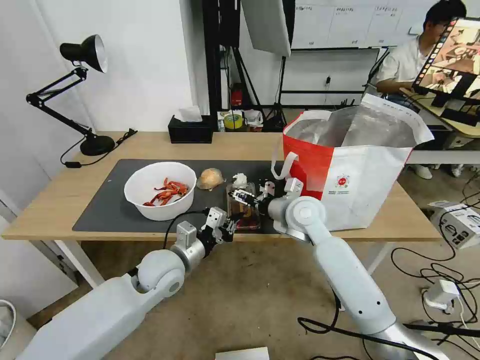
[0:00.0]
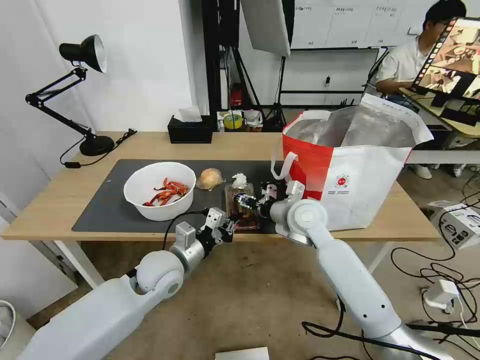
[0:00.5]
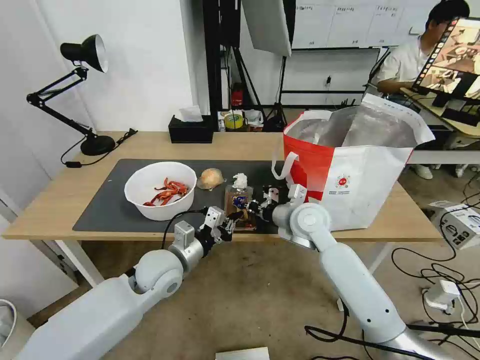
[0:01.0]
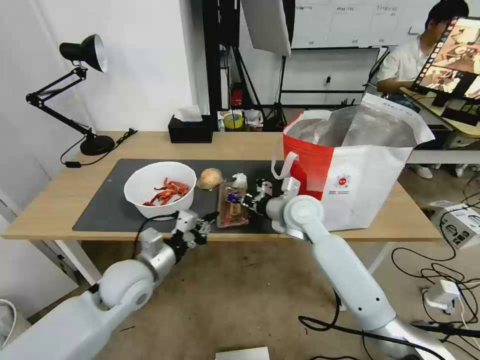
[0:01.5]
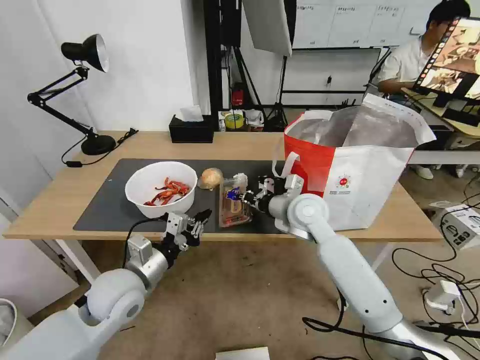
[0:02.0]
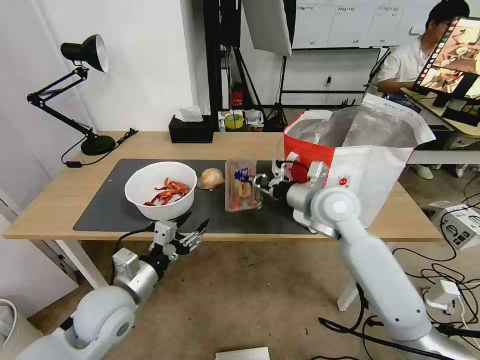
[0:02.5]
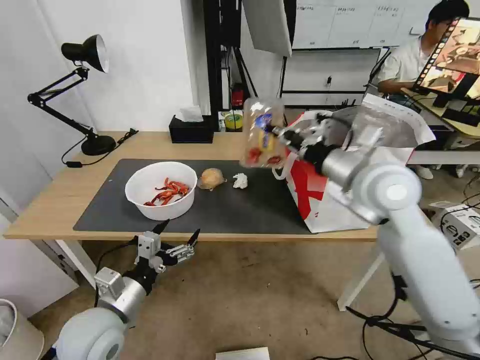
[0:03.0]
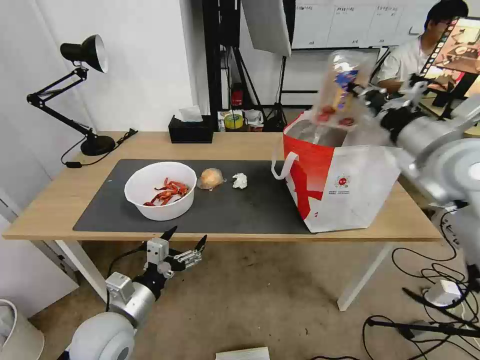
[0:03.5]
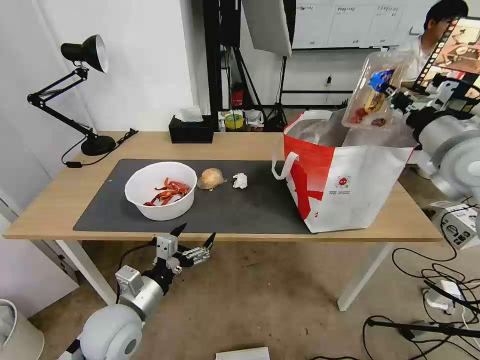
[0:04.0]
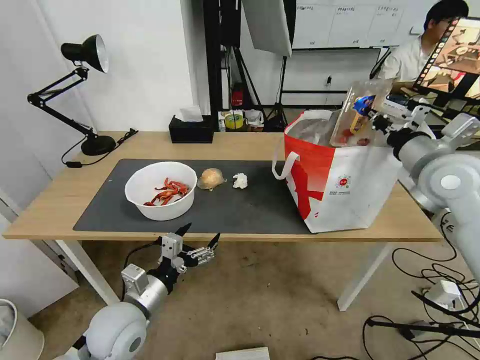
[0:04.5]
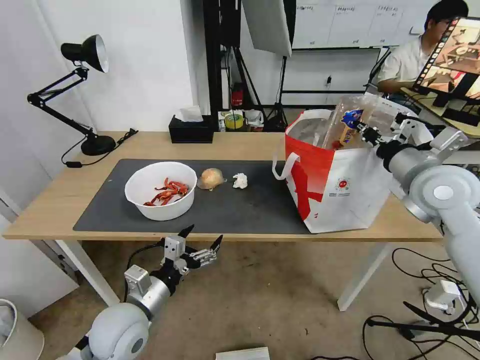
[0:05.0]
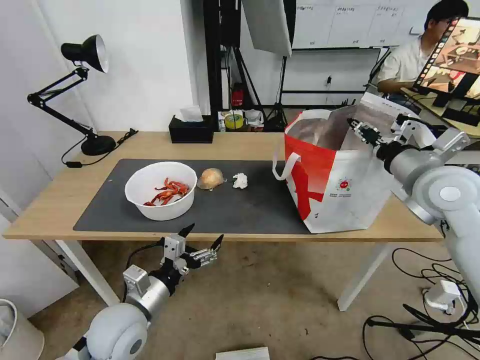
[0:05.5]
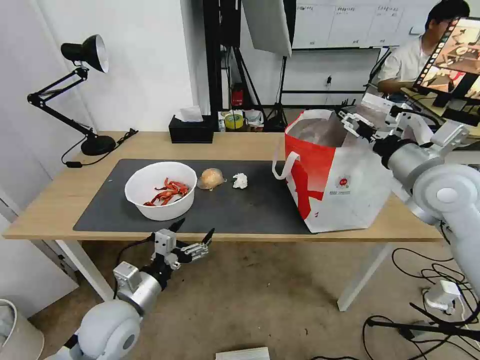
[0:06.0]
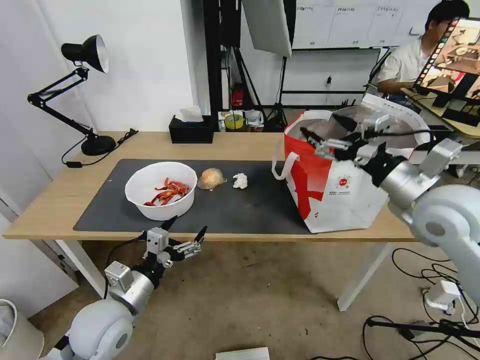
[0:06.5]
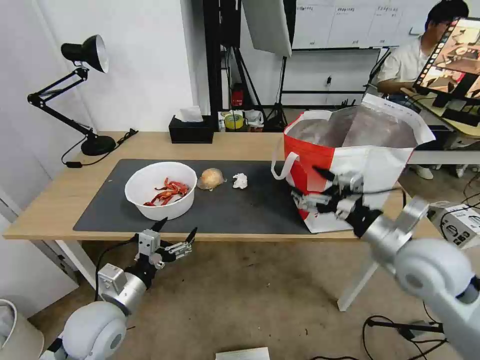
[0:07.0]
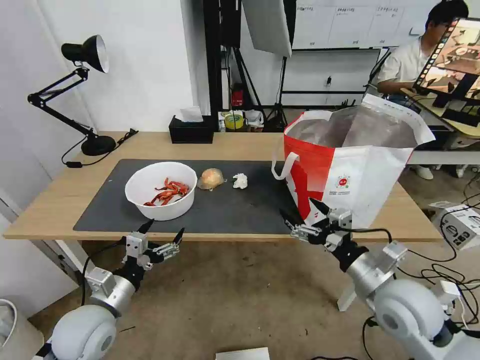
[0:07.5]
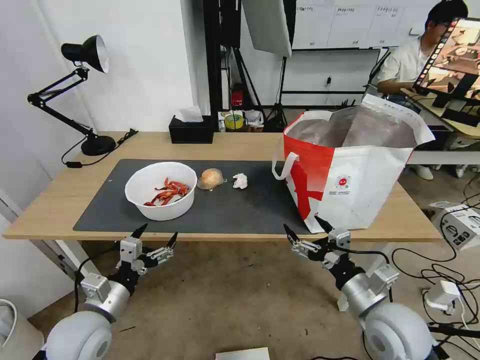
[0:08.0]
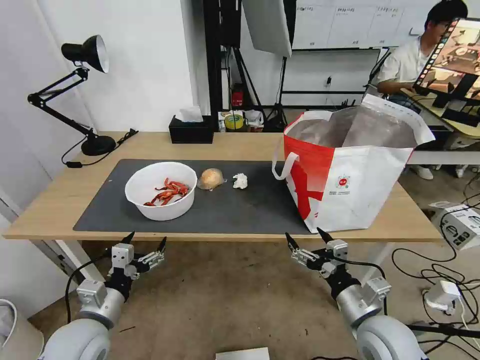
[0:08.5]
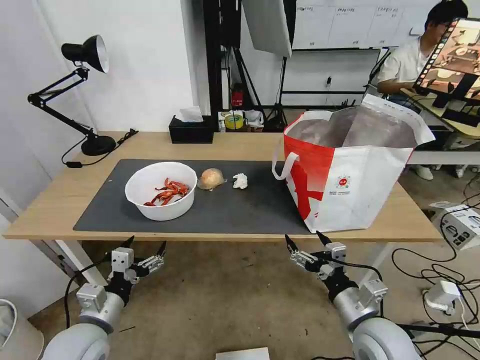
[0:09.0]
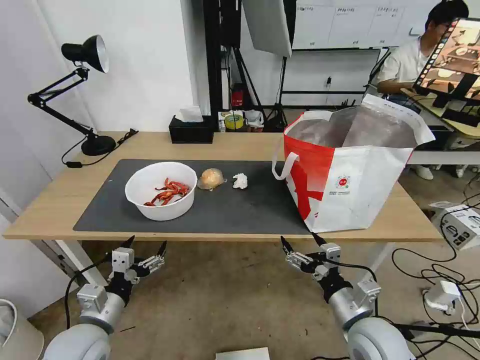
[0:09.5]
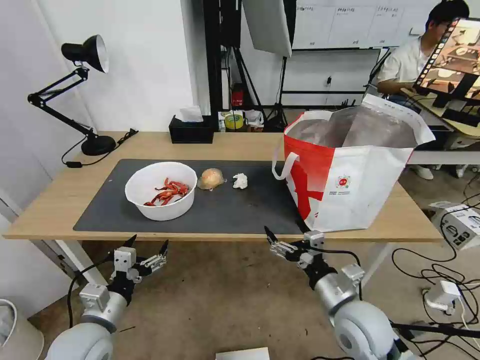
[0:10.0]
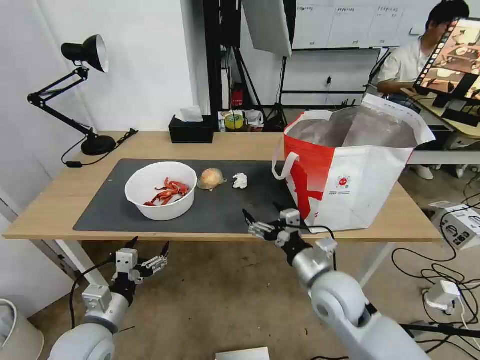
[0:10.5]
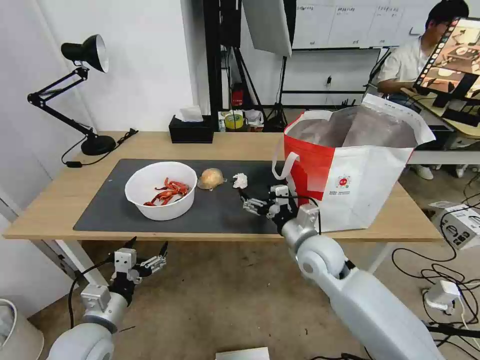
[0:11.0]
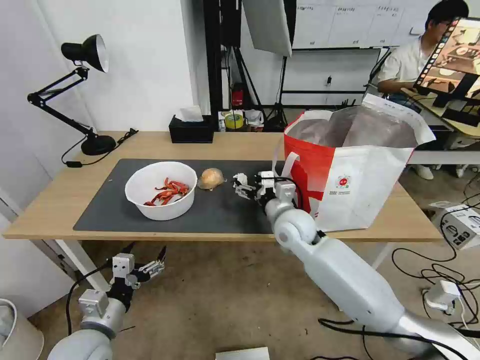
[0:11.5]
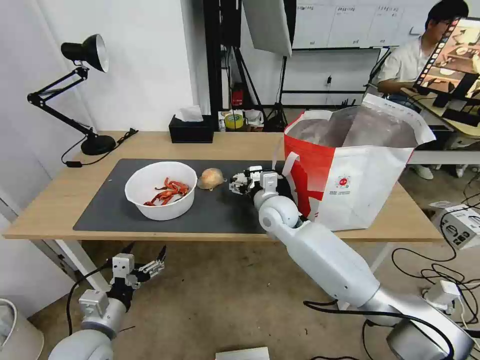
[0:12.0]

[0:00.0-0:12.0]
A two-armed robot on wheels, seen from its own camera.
Task of the whole recording: Pick up the trash from the table and place it into the takeout bag.
0:00.0 to 0:02.0: The right gripper closes up. The left gripper goes about 10 cm to the left and backward.
0:02.0 to 0:04.0: The left gripper moves backward, some 5 cm, and opens; the right gripper heads to the right and upward, covering roughly 30 cm.
0:04.0 to 0:06.0: The right gripper ends up about 5 cm from where it was, and opens.
0:06.0 to 0:08.0: The right gripper moves downward and backward, approximately 25 cm. Meanwhile the left gripper shifts approximately 5 cm to the left.
0:08.0 to 0:10.0: The right gripper shifts roughly 5 cm to the left.
0:10.0 to 0:12.0: The right gripper is displaced forward and to the left by some 25 cm.

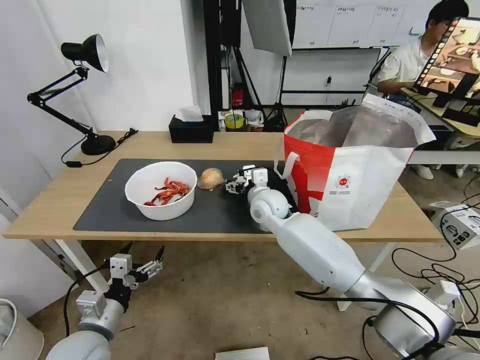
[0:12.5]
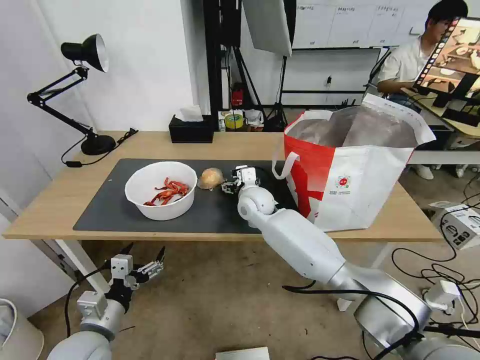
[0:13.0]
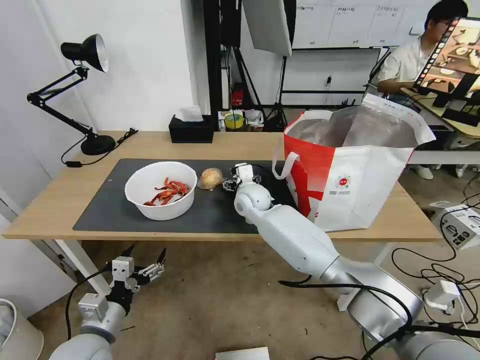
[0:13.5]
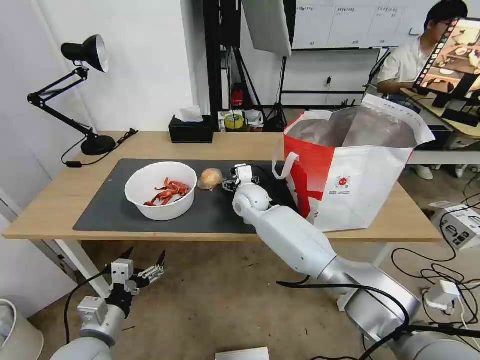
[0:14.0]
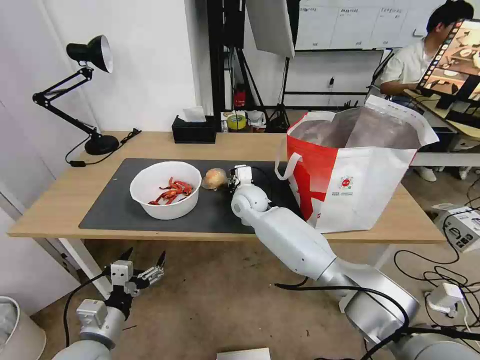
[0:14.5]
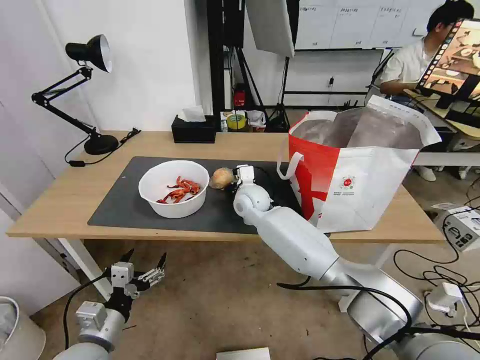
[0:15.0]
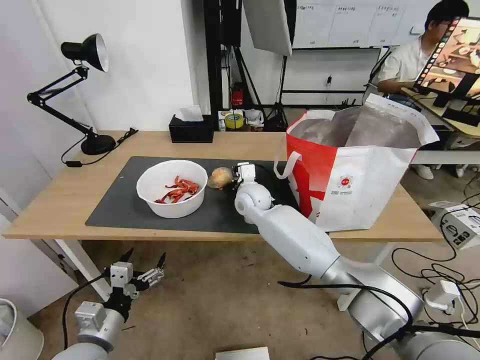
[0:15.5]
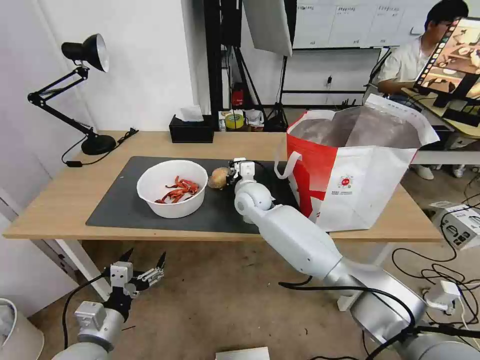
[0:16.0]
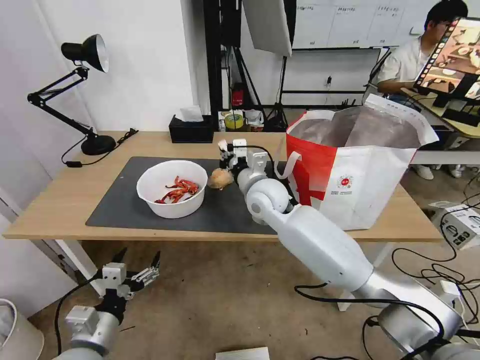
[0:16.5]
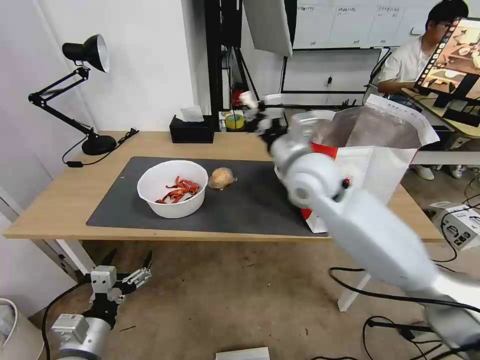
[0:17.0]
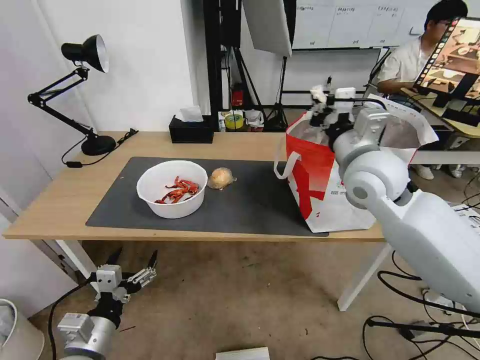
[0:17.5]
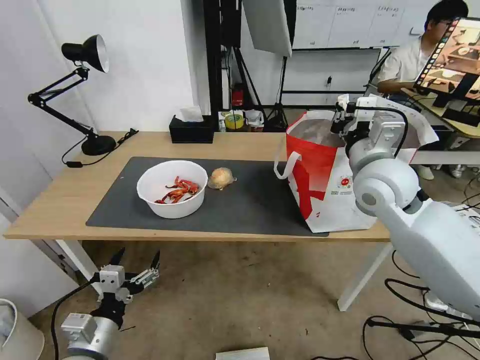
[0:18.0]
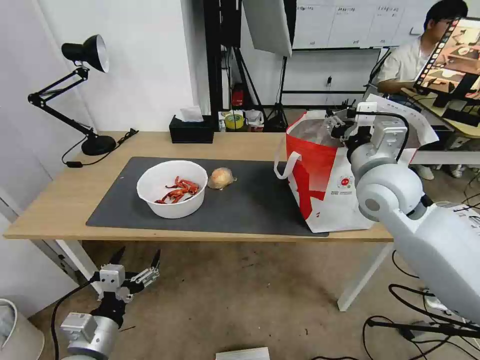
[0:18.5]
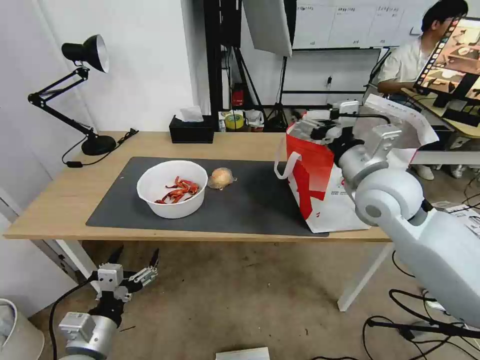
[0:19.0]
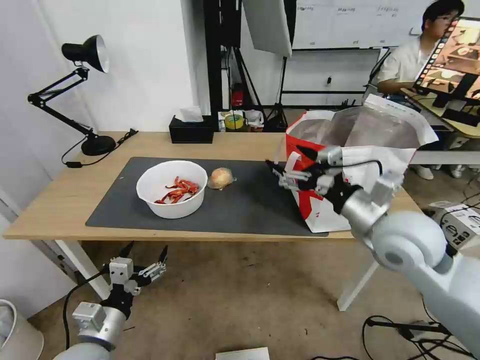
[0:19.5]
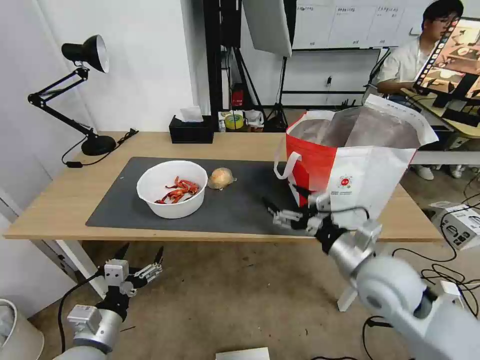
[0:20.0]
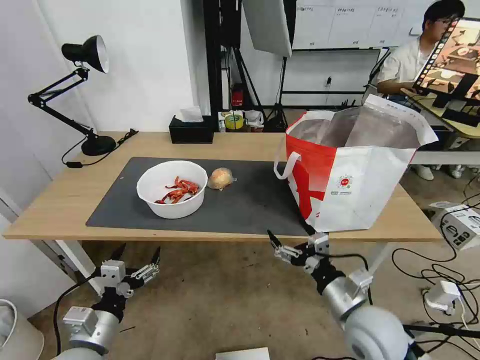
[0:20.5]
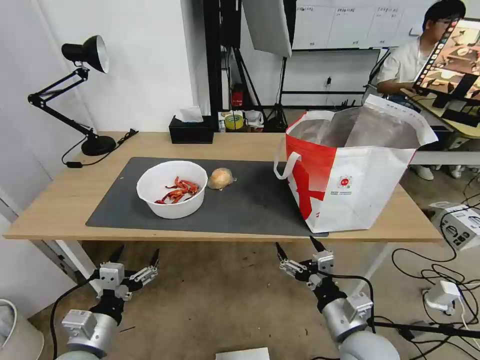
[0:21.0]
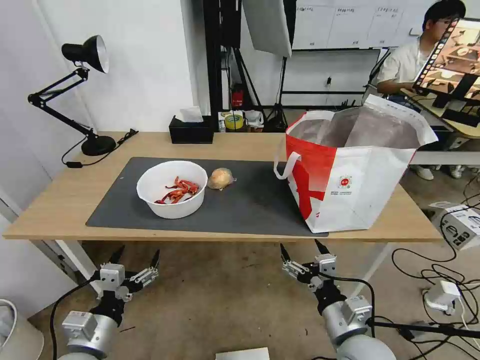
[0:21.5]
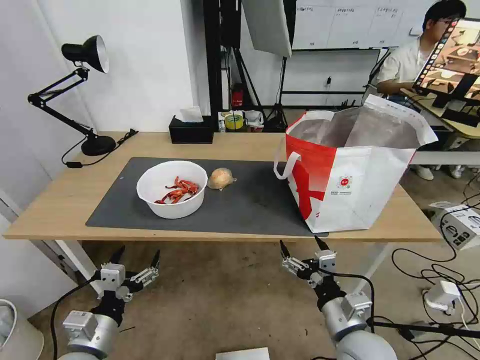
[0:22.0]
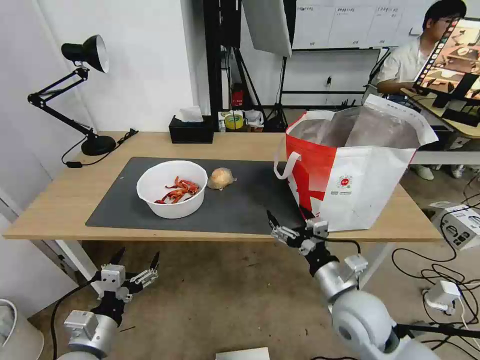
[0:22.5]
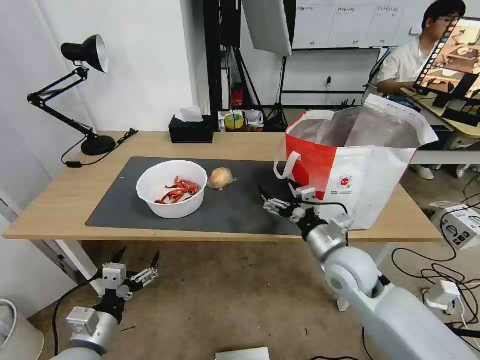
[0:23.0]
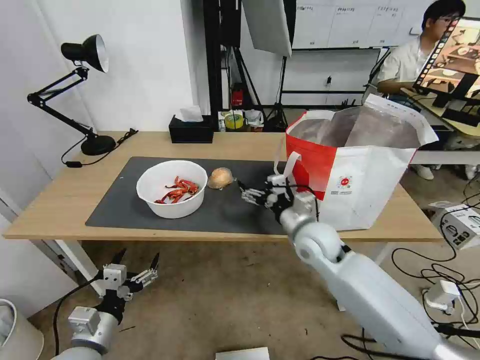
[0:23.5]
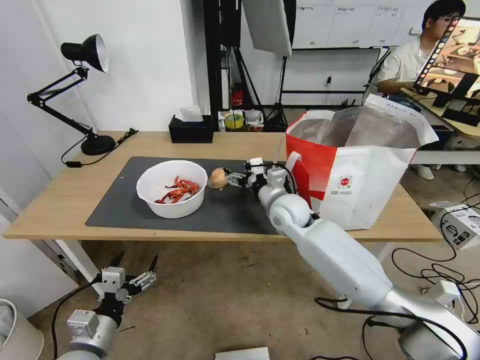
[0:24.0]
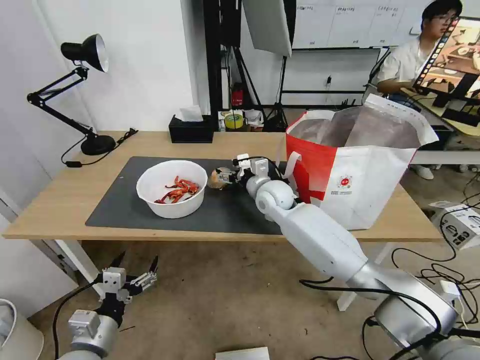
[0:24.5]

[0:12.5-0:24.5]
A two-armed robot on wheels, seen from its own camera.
Task of the whole recording: Pick up the trash from the table and place it into the takeout bag.
0:12.5 to 0:14.5: The right gripper shifts by roughly 5 cm, and closes.
0:14.5 to 0:16.5: The right gripper goes approximately 10 cm upward and backward, and closes its fingers.
0:16.5 to 0:18.5: The right gripper shifts approximately 20 cm to the right and upward, and opens its fingers.
0:18.5 to 0:20.5: The right gripper is displaced downward and backward by about 25 cm, and opens.
0:20.5 to 0:22.5: The grippers stay close to where they were, moving slightly.
0:22.5 to 0:24.5: The right gripper heads forward and to the left, covering about 30 cm.

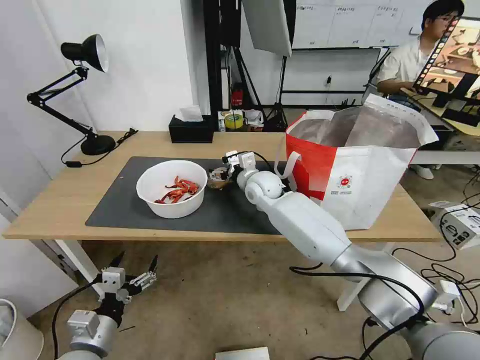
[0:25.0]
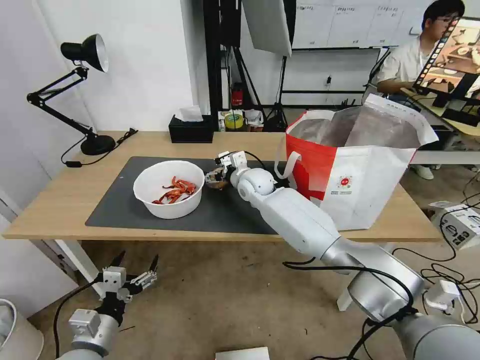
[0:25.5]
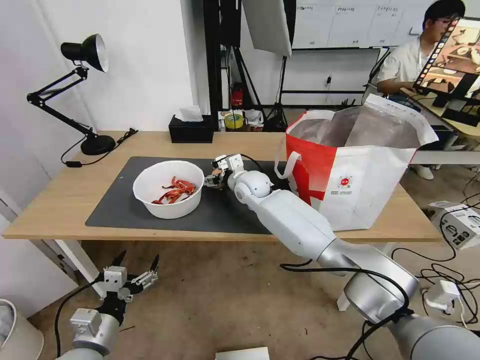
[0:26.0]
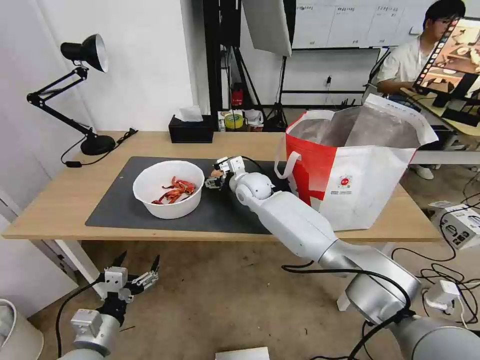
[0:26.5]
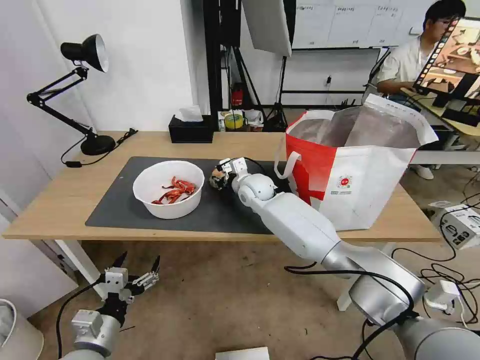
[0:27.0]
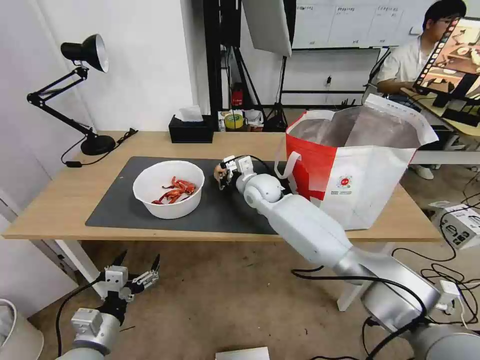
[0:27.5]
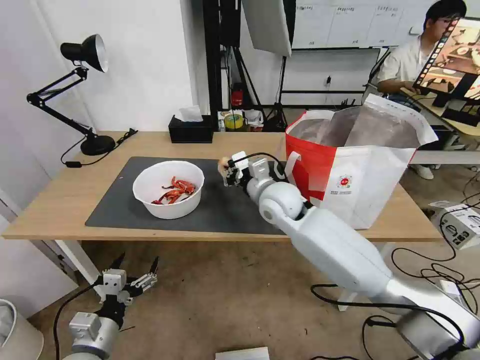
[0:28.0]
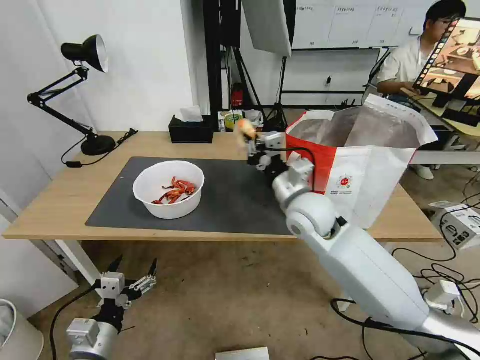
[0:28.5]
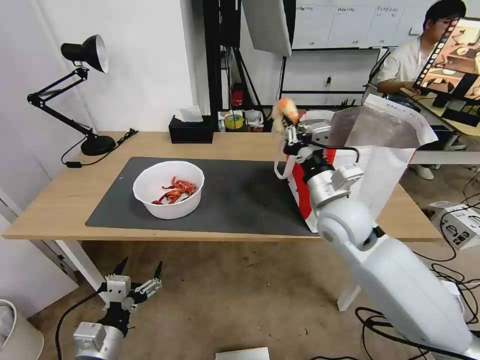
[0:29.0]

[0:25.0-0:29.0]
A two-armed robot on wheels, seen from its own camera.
Task of the whole recording: Pick up the trash from the table and place it into the takeout bag.
0:25.0 to 0:27.0: The right gripper closes.
0:27.0 to 0:29.0: The right gripper heads backward, to the right and upward, covering roughly 25 cm.
